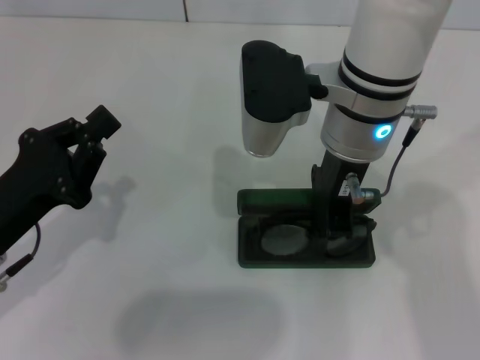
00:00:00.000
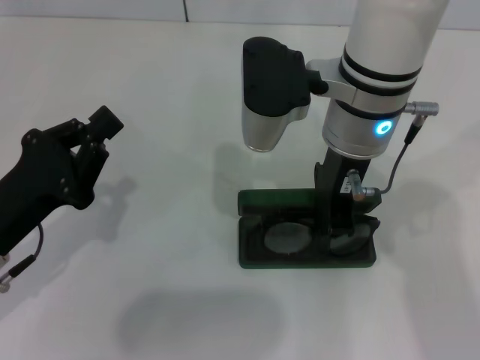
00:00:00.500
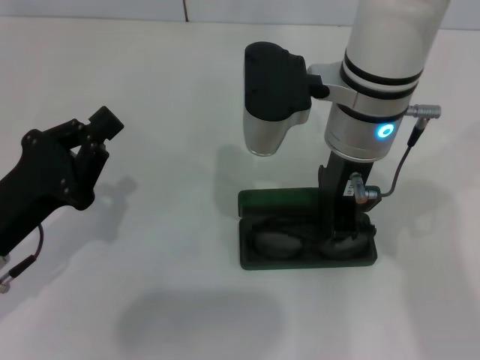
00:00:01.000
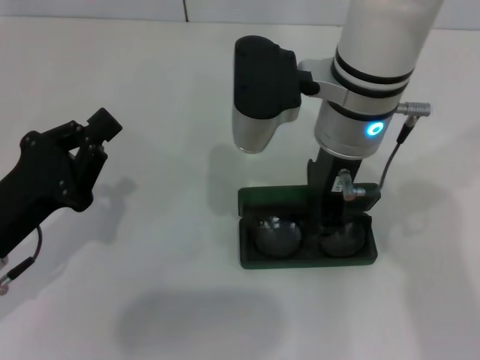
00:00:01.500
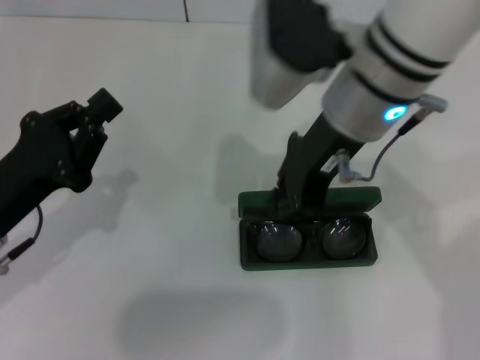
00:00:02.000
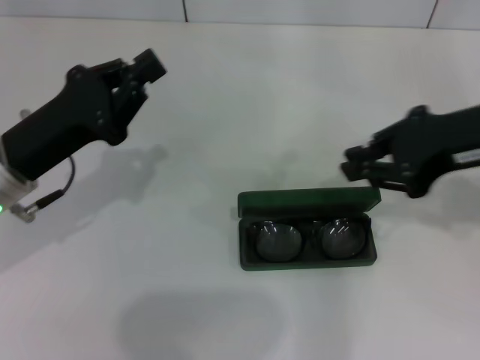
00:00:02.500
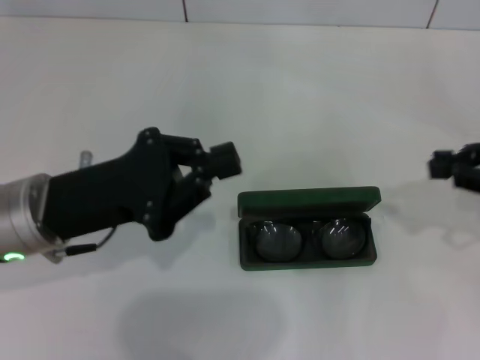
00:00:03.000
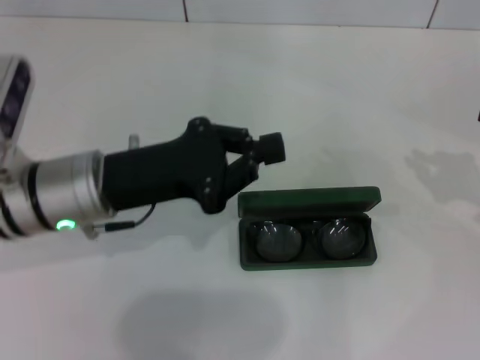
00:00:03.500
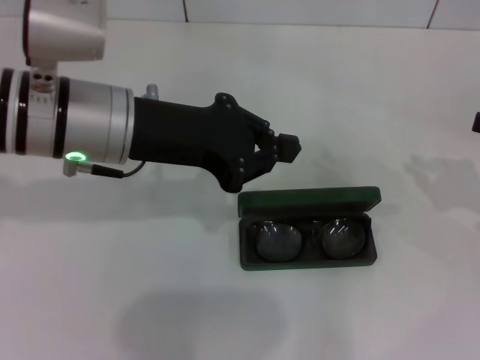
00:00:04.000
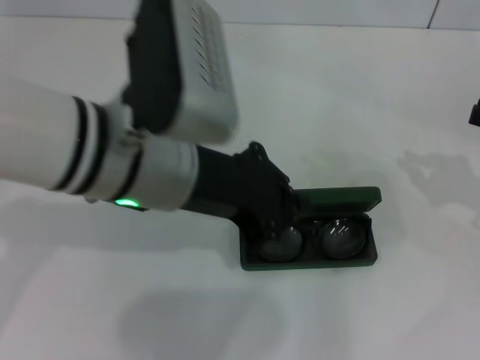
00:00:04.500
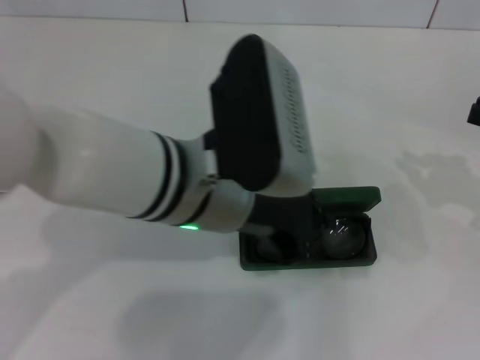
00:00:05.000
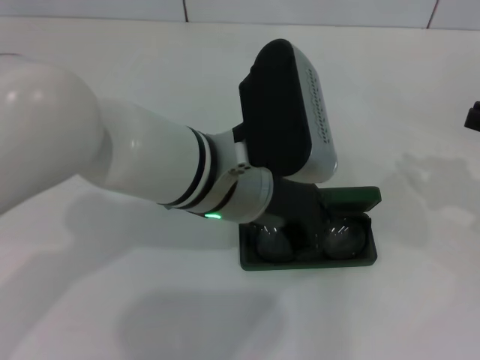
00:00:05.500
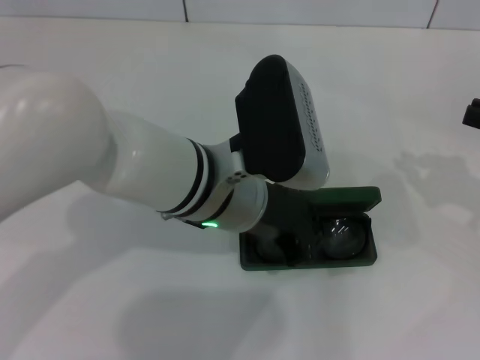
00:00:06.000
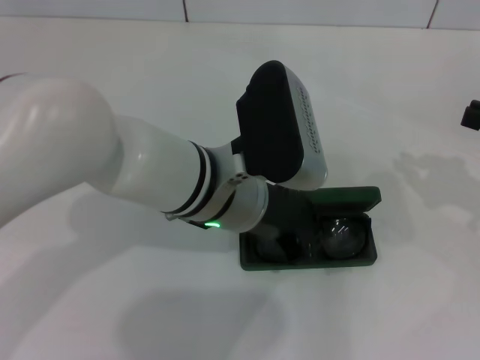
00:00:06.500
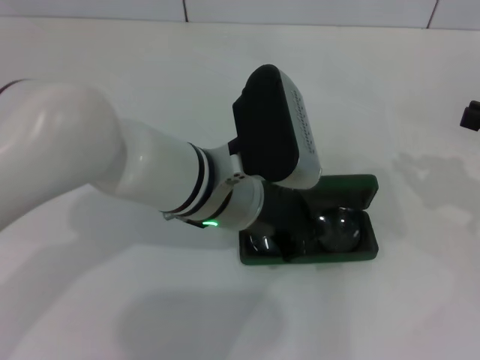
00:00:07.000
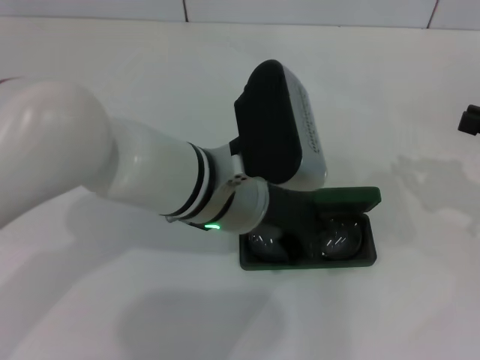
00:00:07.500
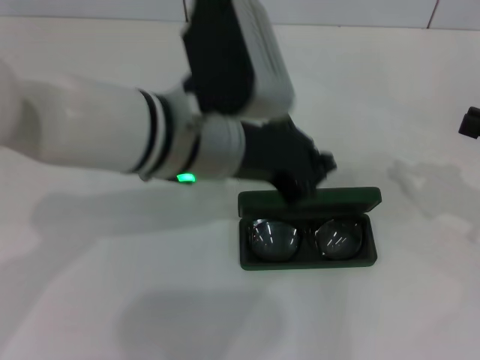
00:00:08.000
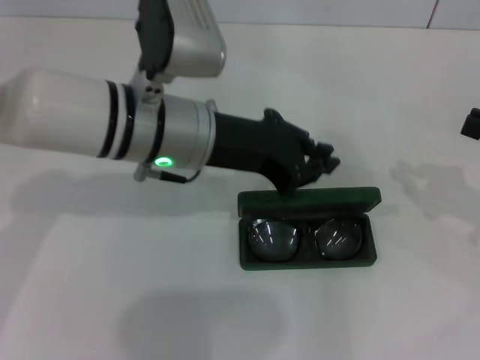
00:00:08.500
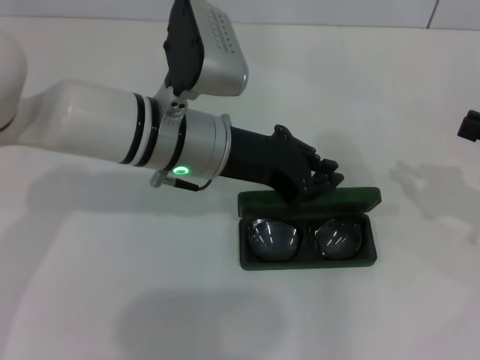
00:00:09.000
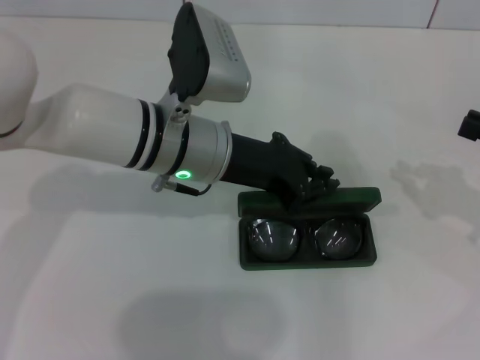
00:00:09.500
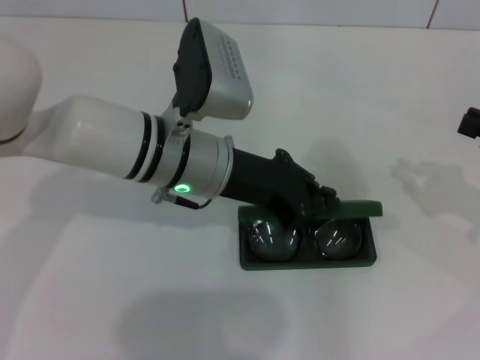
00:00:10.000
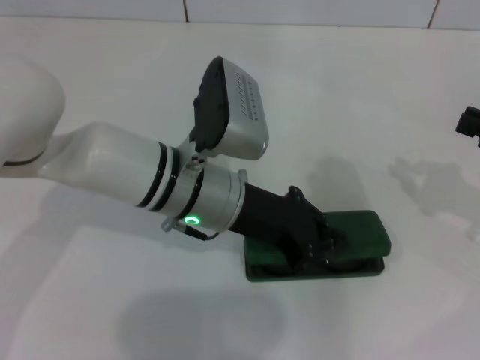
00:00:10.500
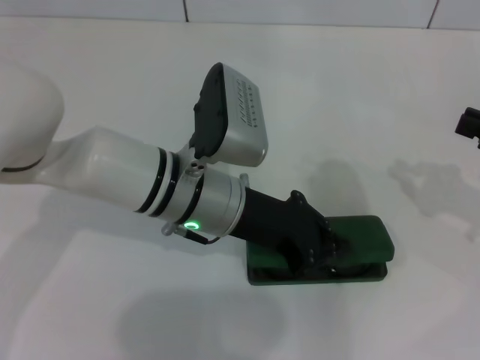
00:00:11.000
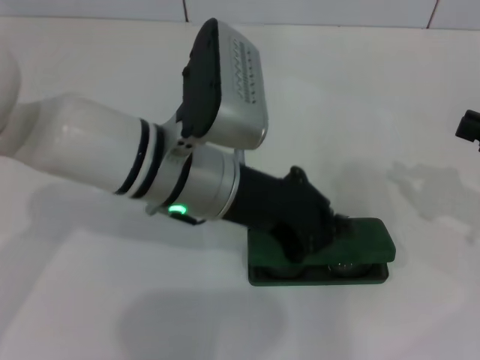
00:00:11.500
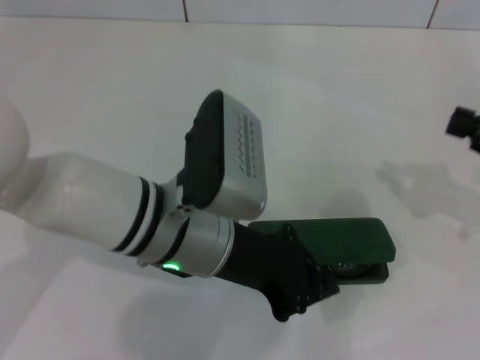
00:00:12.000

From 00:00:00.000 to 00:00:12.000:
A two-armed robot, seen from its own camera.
From 00:00:02.000 to 00:00:04.000: The left gripper is displaced upward, to the right and forward by approximately 20 cm. The right gripper travels to the right by approximately 30 cm.
From 00:00:04.000 to 00:00:06.000: The left gripper goes approximately 10 cm to the right.
From 00:00:06.000 to 00:00:08.000: The grippers stay close to where they were, moving slightly.
From 00:00:08.000 to 00:00:10.000: The left gripper travels downward by roughly 5 cm.
From 00:00:10.000 to 00:00:12.000: The left gripper moves backward, some 5 cm.

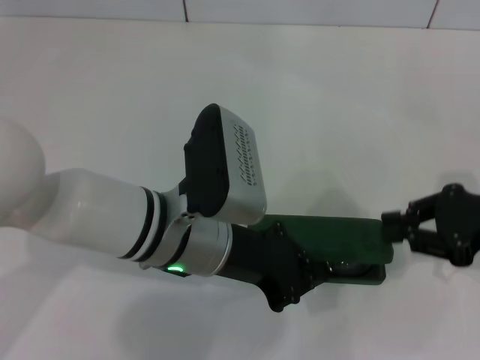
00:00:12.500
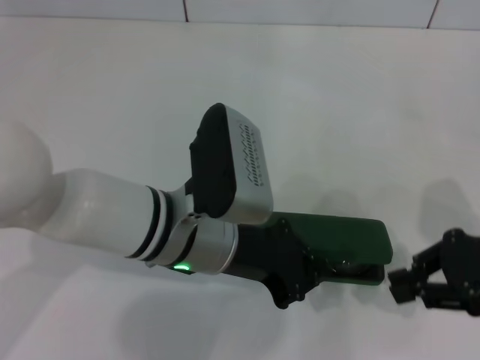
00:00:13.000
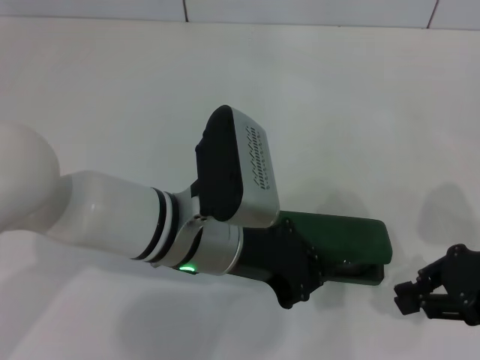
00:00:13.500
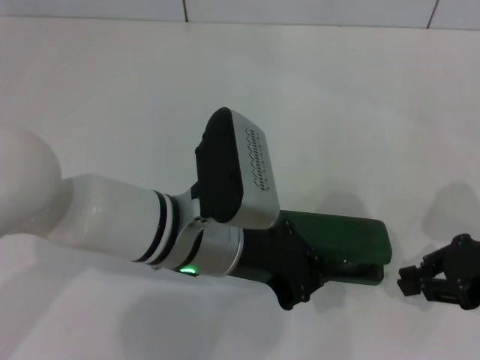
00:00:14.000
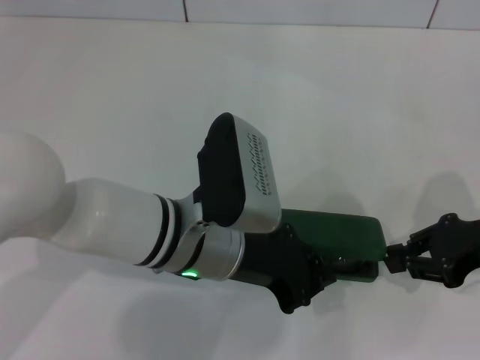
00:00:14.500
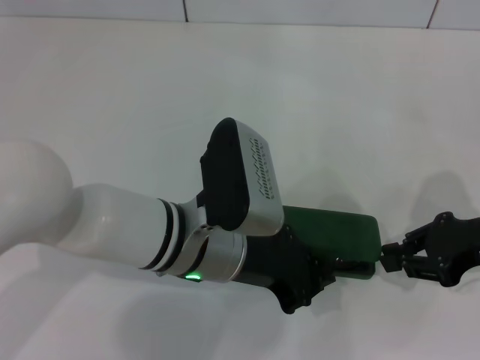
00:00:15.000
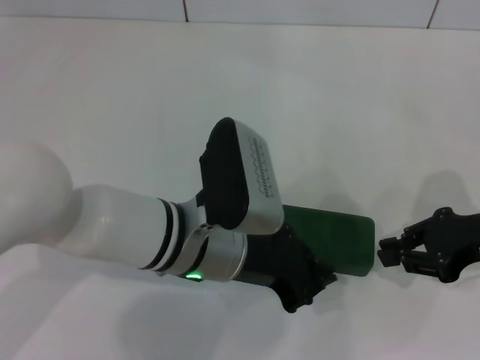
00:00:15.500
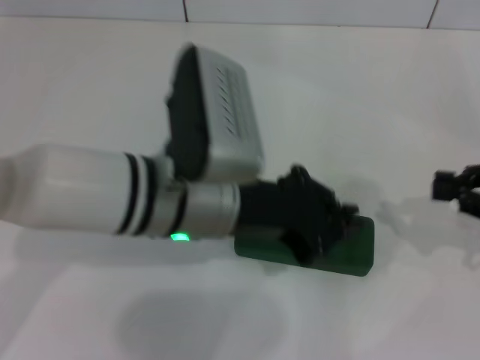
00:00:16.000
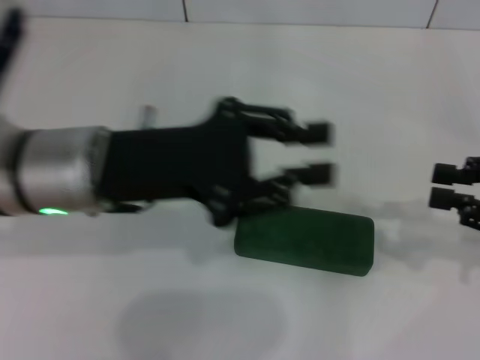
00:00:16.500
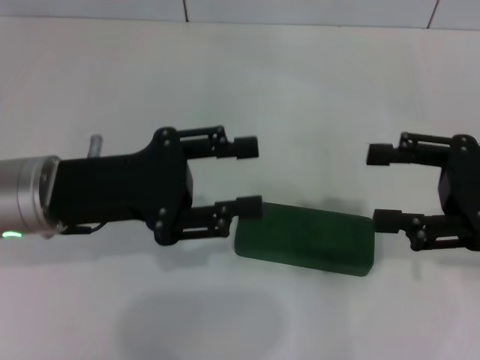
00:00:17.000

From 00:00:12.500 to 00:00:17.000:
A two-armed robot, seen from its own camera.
Step, from 00:00:12.500 to 00:00:15.000: Close the glasses case with your left hand.
From 00:00:12.500 to 00:00:14.500: The grippers make only small movements.
From 00:00:14.500 to 00:00:17.000: The right gripper heads upward, covering some 5 cm, and opens. The left gripper goes about 15 cm to the left, and opens its fingers.
